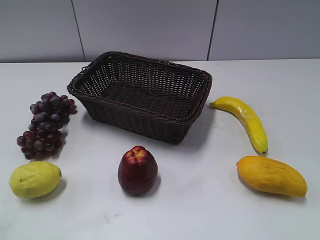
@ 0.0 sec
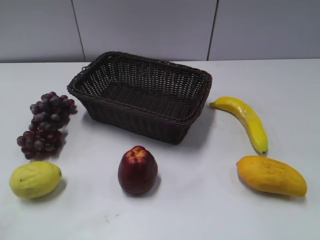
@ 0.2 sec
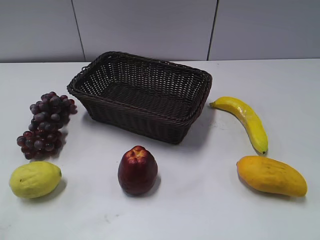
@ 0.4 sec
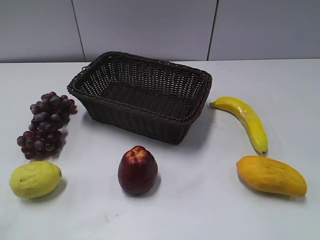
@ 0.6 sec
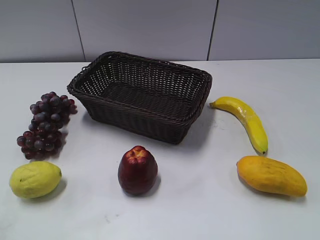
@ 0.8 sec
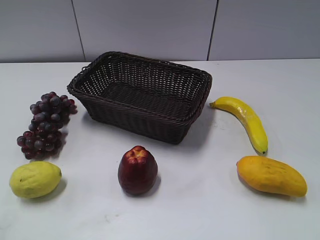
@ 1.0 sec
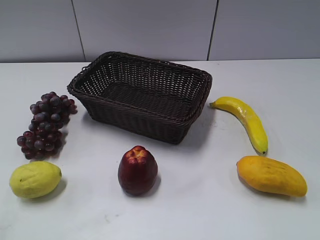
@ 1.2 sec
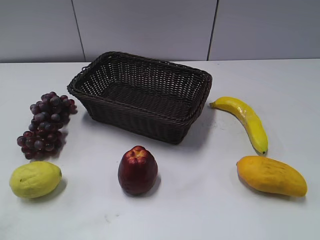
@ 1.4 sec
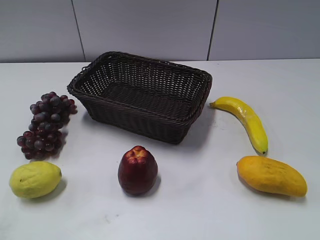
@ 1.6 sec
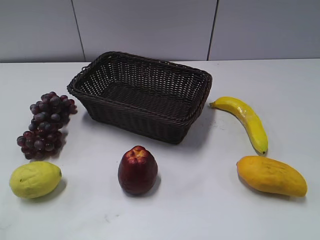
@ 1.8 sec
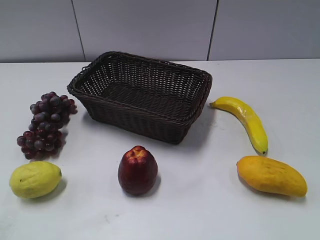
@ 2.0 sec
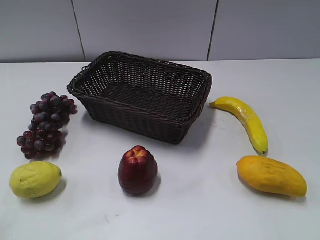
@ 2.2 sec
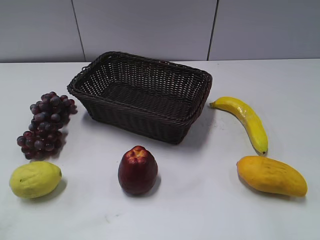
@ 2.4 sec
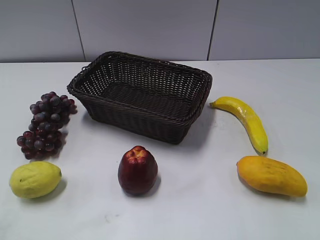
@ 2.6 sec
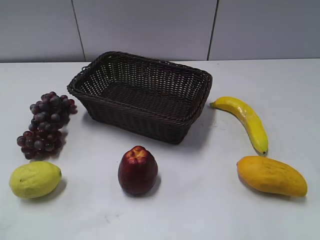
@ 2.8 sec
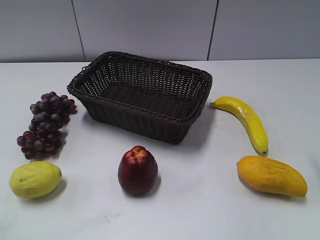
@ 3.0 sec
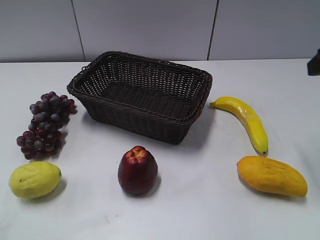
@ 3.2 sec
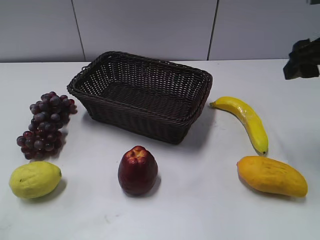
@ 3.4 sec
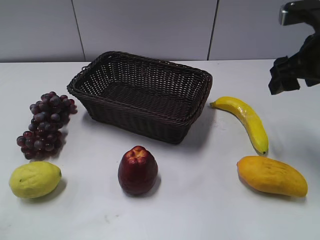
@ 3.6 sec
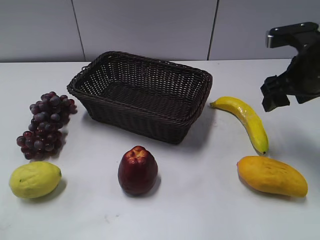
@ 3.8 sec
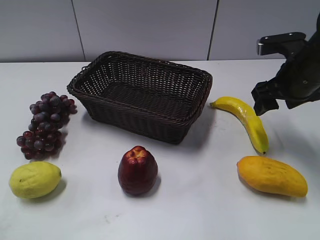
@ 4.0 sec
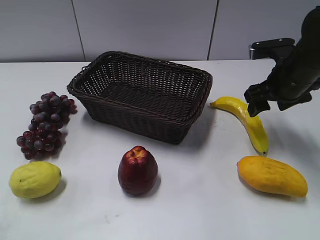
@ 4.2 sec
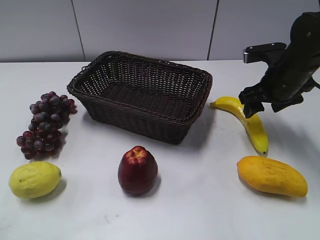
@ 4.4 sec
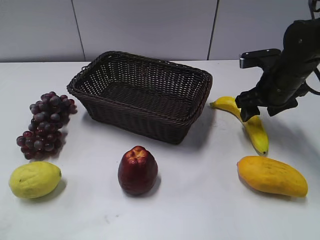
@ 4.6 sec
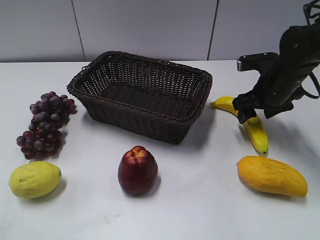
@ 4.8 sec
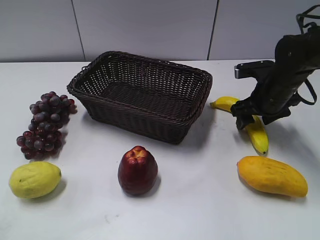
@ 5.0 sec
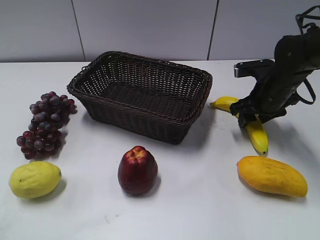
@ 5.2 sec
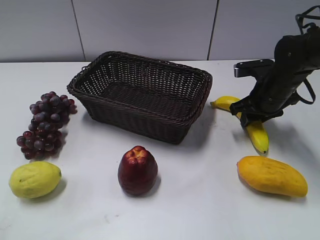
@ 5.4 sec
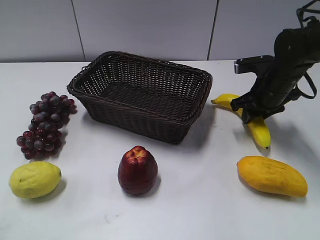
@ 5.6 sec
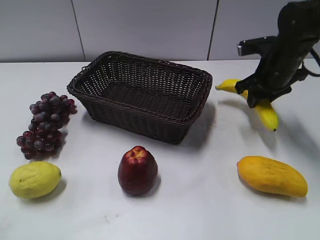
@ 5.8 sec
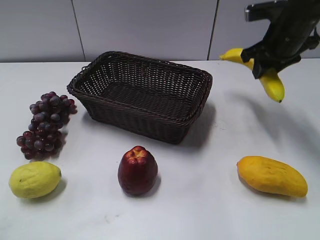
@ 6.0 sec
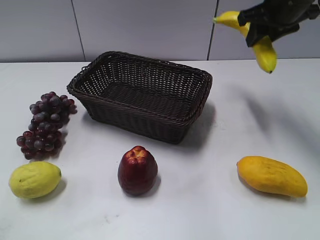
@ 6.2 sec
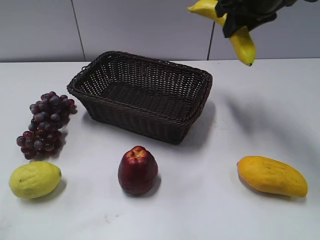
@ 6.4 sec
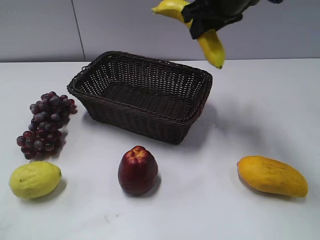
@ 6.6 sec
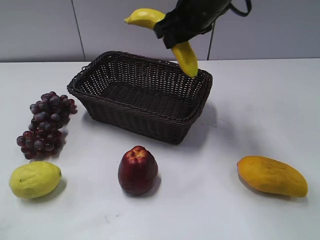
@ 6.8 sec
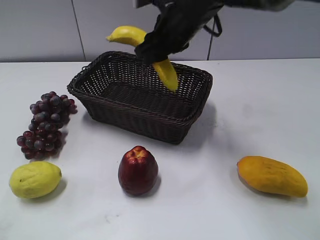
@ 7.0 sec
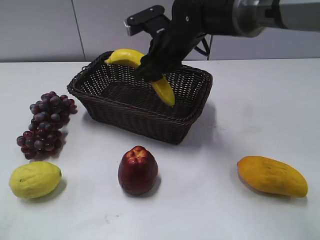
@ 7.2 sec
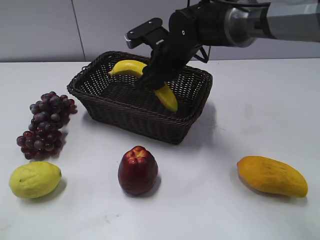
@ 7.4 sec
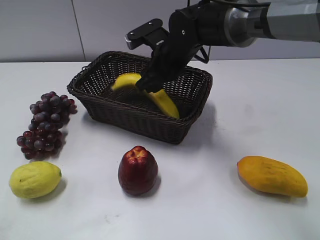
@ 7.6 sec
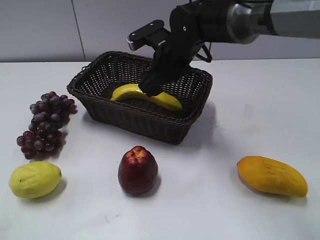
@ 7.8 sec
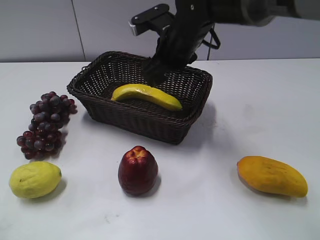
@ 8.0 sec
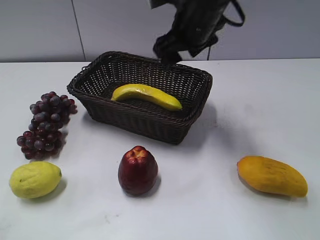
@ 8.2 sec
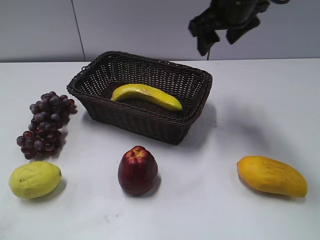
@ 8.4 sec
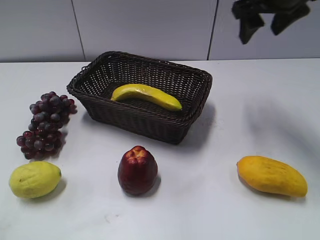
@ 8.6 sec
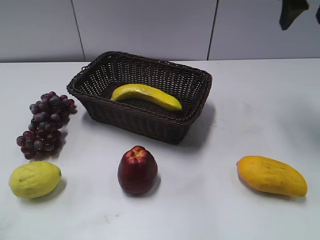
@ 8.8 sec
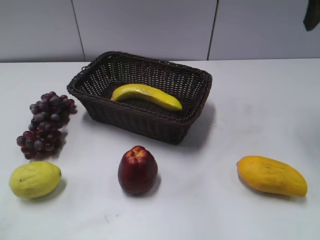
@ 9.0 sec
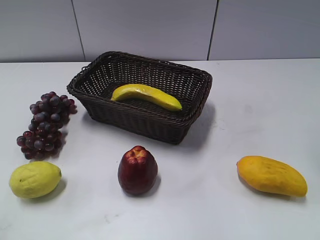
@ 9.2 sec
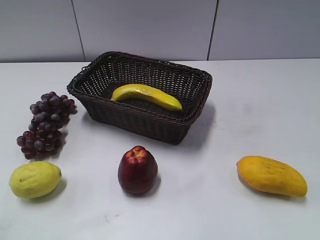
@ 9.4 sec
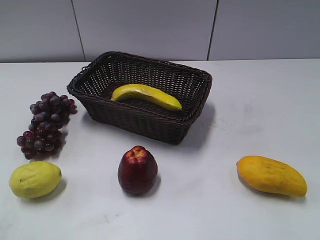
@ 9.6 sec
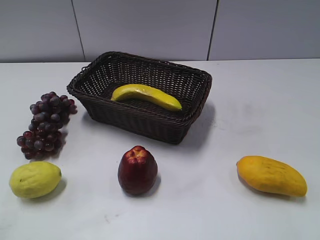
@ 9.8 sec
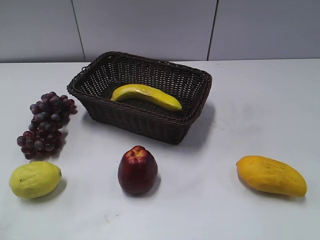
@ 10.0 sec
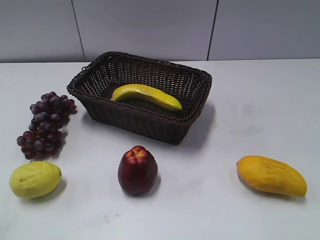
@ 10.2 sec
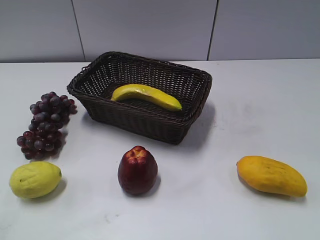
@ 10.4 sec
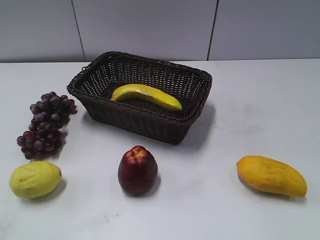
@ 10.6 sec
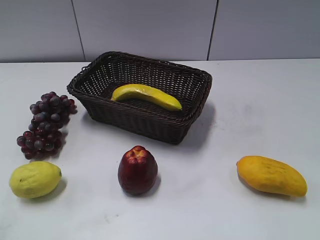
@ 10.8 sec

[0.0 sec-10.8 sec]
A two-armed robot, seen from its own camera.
Step, 3.0 sec to 5.8 sec: Grasp the banana with right gripper.
Step, 6.0 sec to 7.8 sec: Place the banana in the basket with right gripper.
3.0 sec to 4.6 sec: The right gripper travels downward, forward and to the left by about 25 cm.
4.6 sec to 6.2 sec: The right gripper moves upward, some 15 cm, and closes up.
6.2 sec to 7.8 sec: The right gripper travels to the left and downward by roughly 20 cm, and opens its fingers.
7.8 sec to 9.2 sec: The right gripper heads to the right, upward and backward, covering approximately 35 cm.

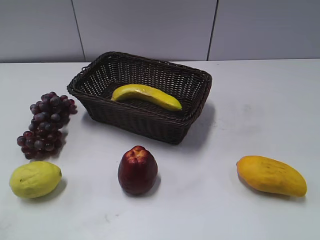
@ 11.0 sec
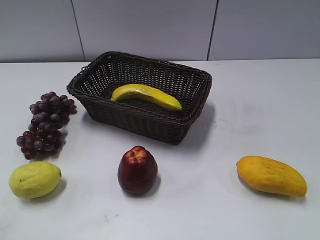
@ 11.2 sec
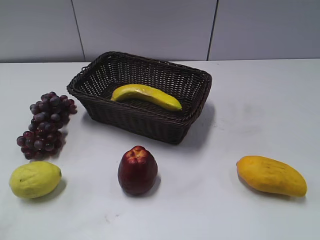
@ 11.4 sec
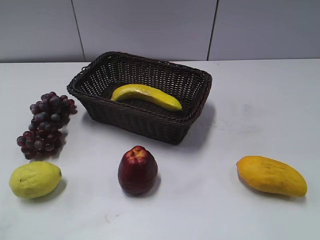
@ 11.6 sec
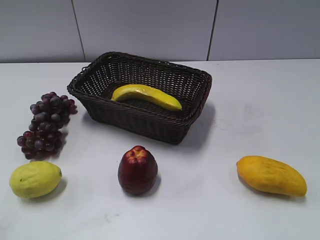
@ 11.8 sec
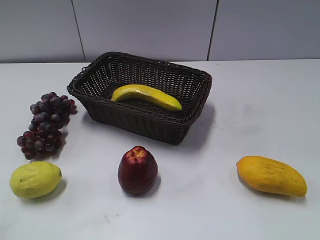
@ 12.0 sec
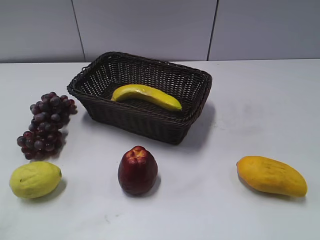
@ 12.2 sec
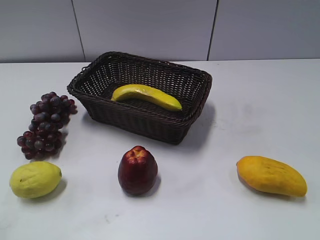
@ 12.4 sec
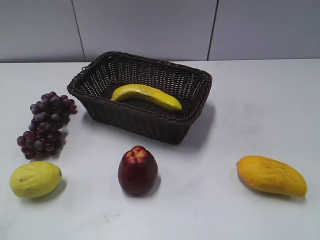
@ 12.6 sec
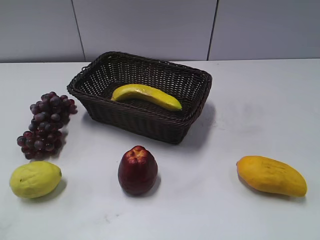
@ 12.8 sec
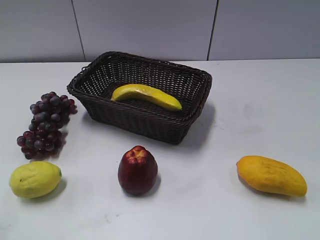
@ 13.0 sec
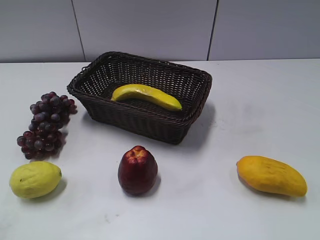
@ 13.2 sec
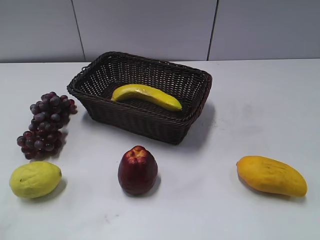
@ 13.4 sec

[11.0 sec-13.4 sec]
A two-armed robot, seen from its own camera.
12.2 sec to 13.4 sec: Both grippers stay about where they are.

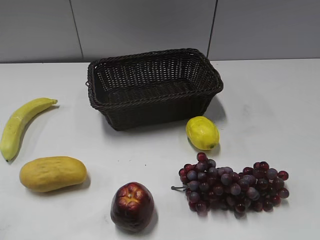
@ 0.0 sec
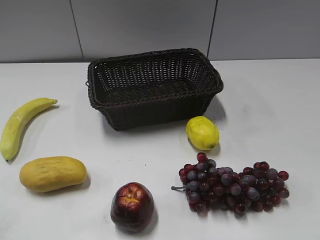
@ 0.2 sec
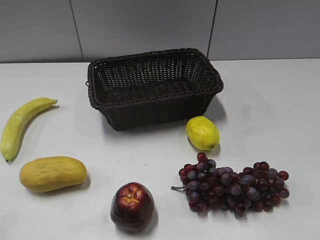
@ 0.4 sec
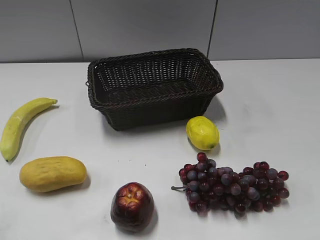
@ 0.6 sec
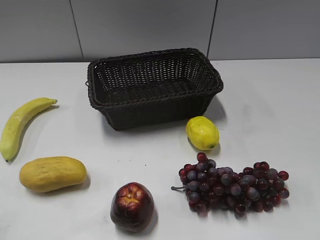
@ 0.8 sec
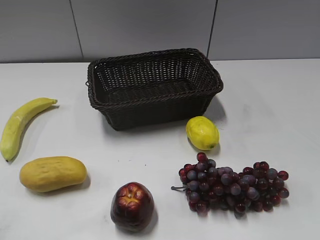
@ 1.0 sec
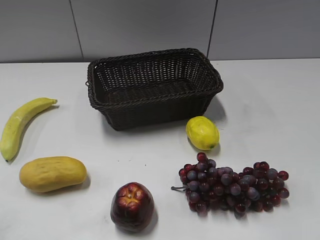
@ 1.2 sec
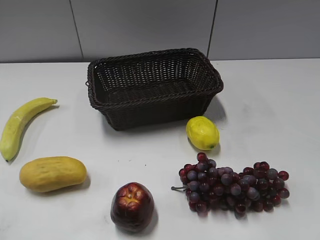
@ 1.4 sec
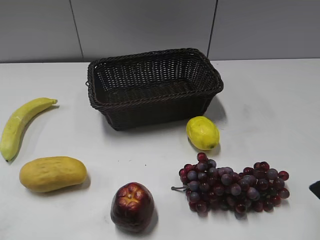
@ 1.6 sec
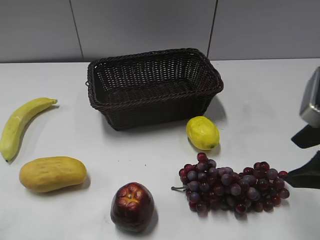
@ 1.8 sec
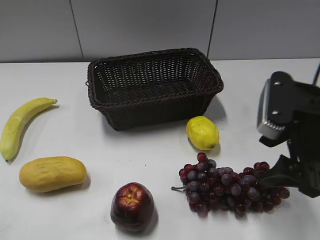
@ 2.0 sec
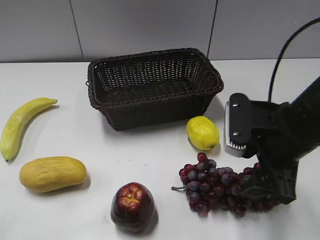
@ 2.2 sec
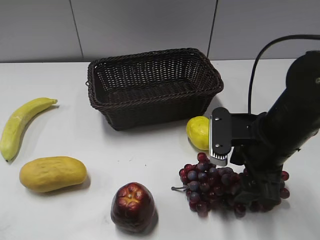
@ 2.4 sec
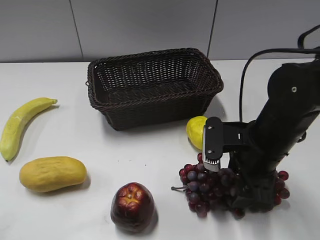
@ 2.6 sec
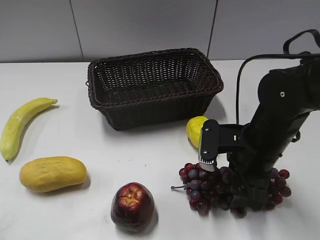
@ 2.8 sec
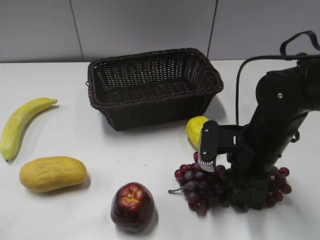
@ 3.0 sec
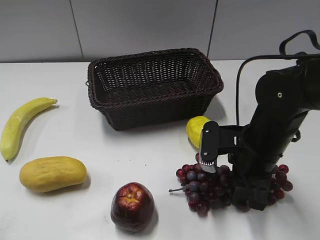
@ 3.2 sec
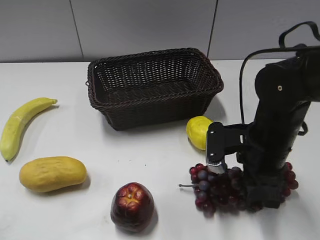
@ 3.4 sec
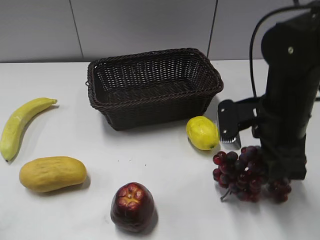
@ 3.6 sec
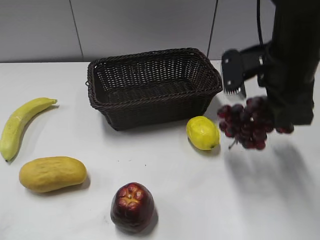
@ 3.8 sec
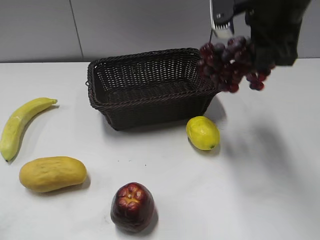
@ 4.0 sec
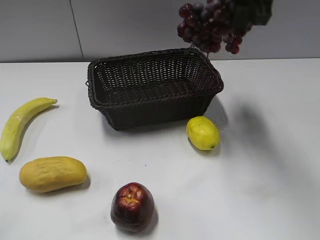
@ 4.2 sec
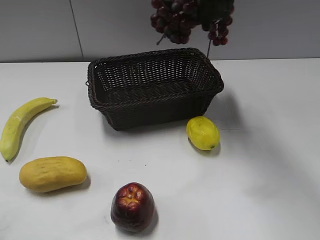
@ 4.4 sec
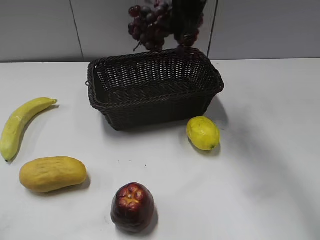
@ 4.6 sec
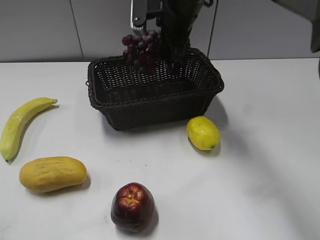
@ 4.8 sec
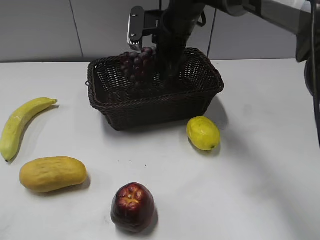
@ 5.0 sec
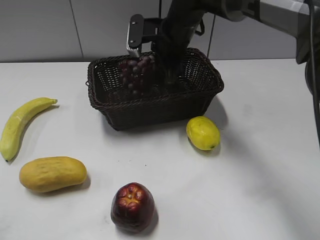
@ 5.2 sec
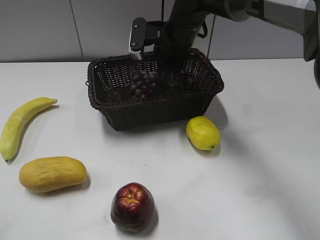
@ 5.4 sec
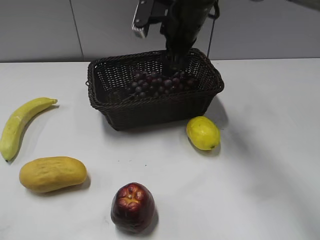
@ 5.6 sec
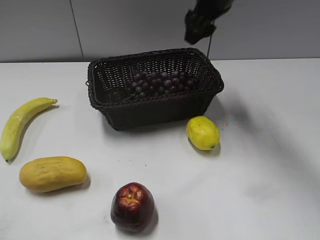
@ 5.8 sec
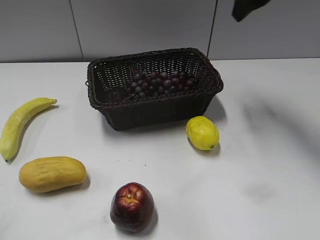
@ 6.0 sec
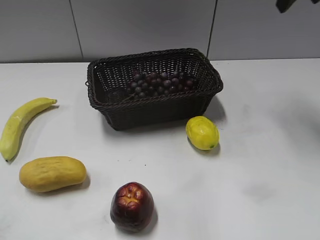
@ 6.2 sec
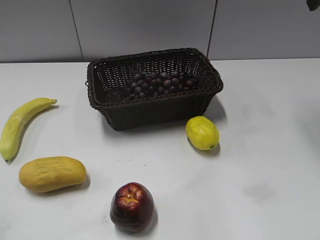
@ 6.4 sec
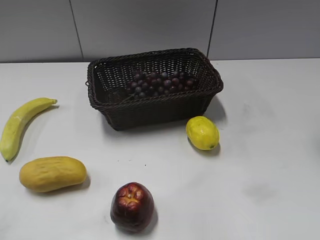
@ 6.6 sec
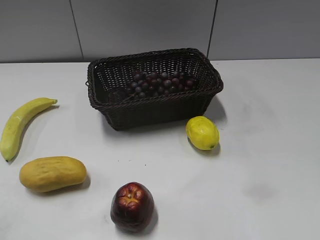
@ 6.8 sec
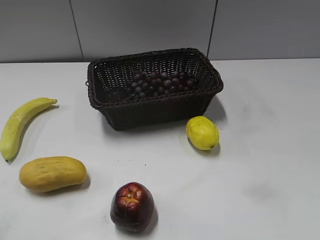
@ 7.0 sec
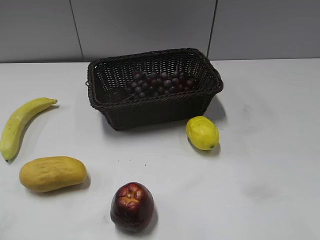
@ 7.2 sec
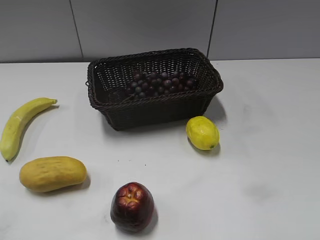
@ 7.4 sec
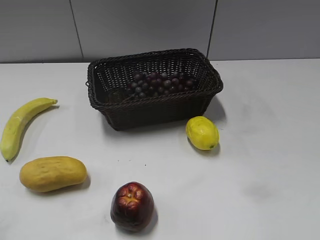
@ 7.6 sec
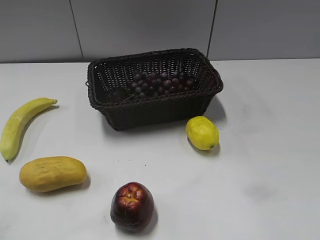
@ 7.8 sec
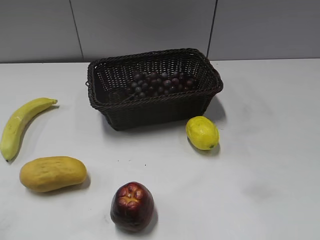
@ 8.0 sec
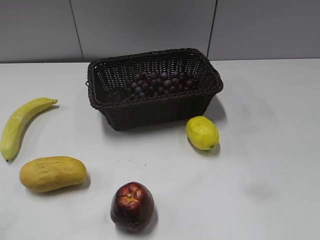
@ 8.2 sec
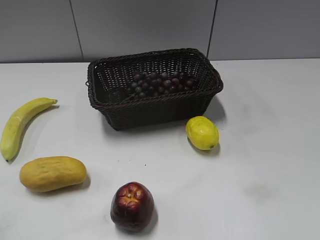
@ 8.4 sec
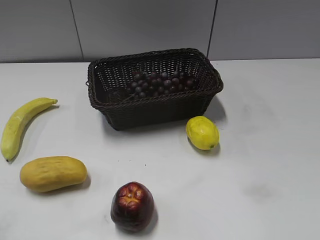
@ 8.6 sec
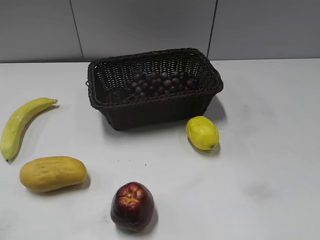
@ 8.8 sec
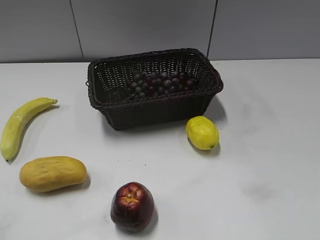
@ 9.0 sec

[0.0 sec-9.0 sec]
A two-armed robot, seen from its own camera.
Step, 1.6 sec to 2.8 sec: Grasp the grape with right gripper.
Step, 3.0 sec to 5.4 sec: Place the grape in the basket with right gripper.
1.6 sec to 3.0 sec: The right gripper travels downward, to the left and forward by approximately 20 cm, and closes its fingers.
3.0 sec to 4.4 sec: The right gripper travels upward and forward by about 25 cm.
4.4 sec to 6.0 sec: The right gripper travels to the right by roughly 10 cm, and opens its fingers.
6.0 sec to 7.6 sec: The right gripper moves backward, some 35 cm.
